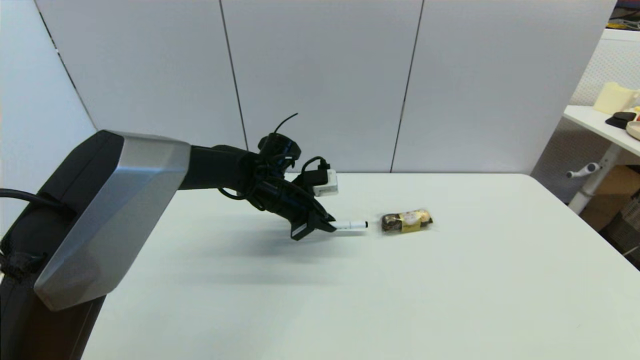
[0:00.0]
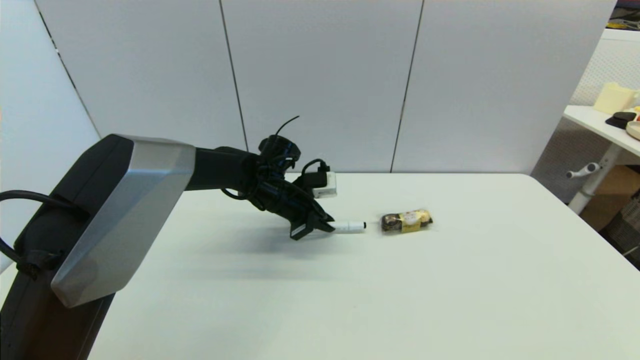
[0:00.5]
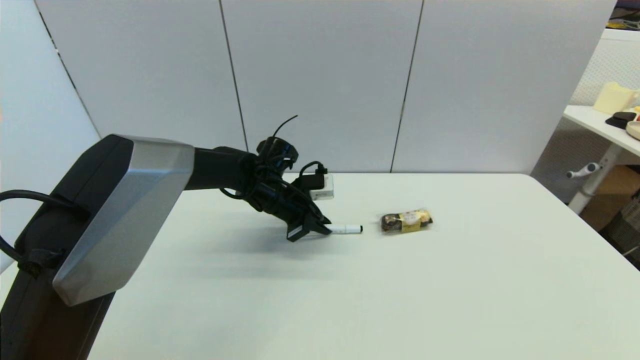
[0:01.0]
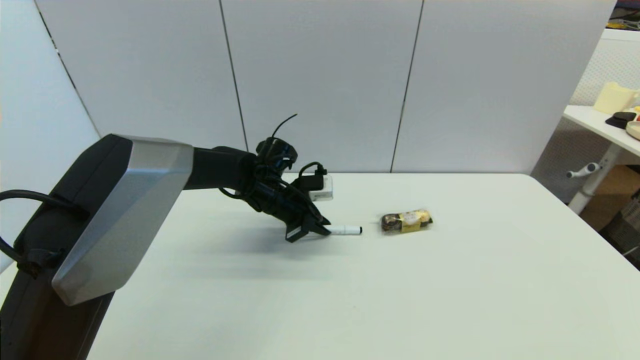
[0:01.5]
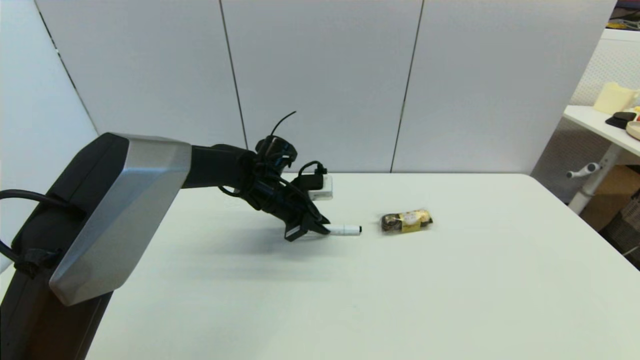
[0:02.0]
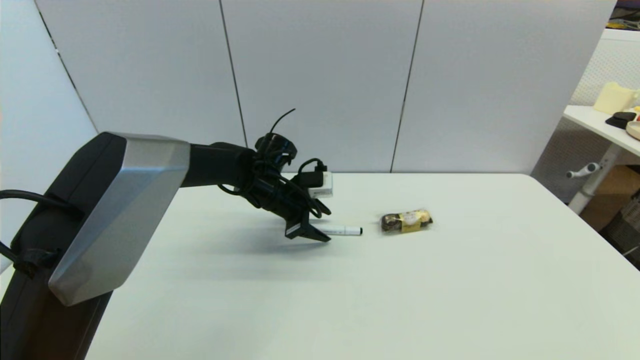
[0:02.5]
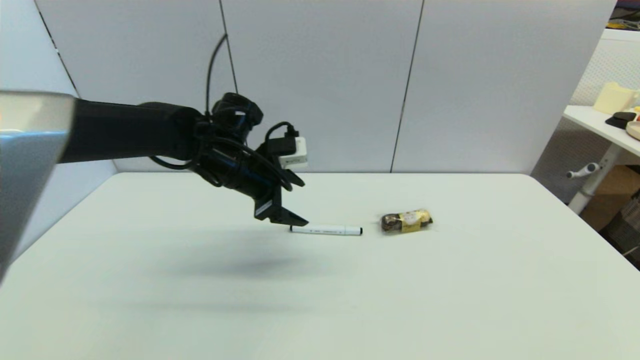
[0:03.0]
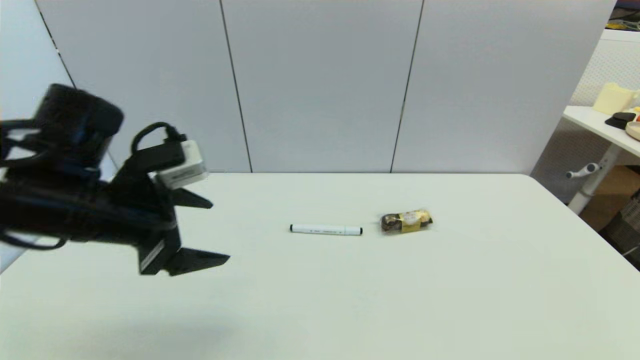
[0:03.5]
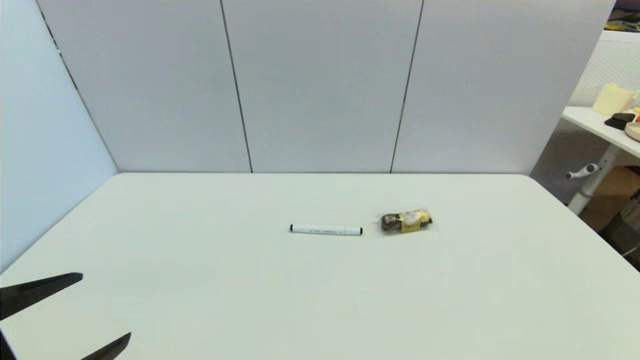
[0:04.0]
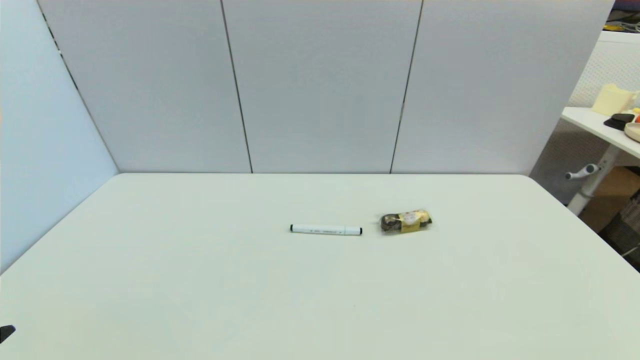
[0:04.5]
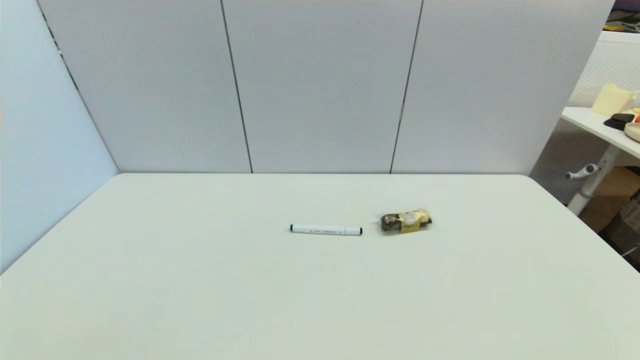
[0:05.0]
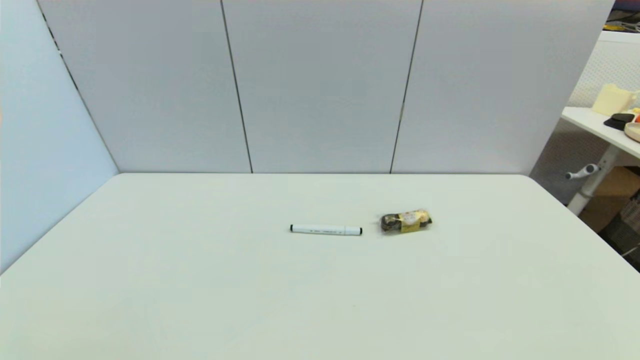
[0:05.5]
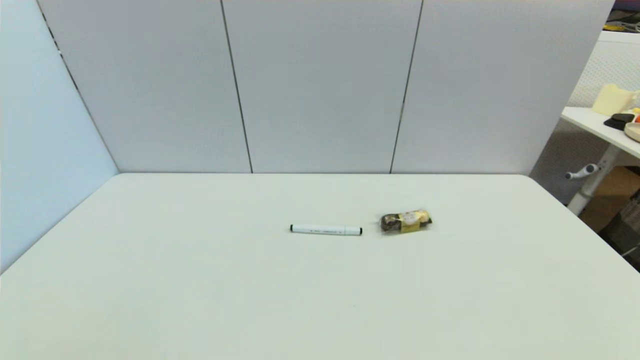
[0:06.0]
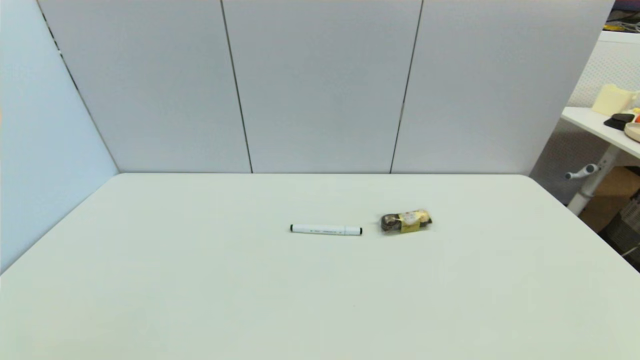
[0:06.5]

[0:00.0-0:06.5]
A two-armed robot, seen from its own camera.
Task of the whole recording: put the black marker in the designated position.
Step, 0:00.0 to 0:02.5: Place the Marker pen on the table with left gripper.
0:00.0 to 0:02.0: The grippers move only a little.
0:02.0 to 0:04.5: The left gripper shifts about 50 cm backward and to the left, and opens up.

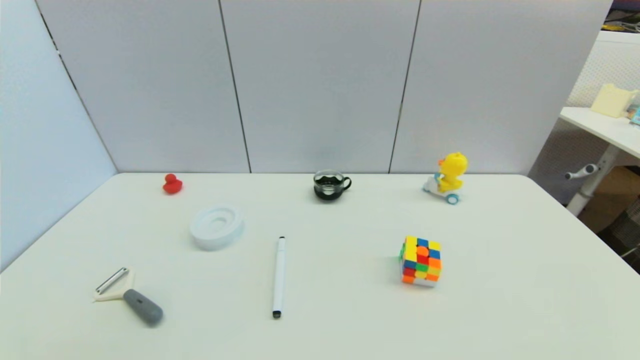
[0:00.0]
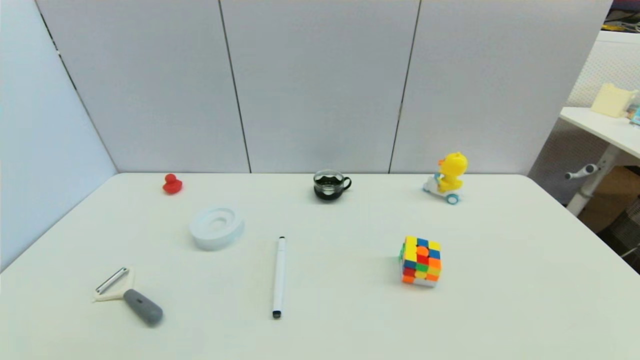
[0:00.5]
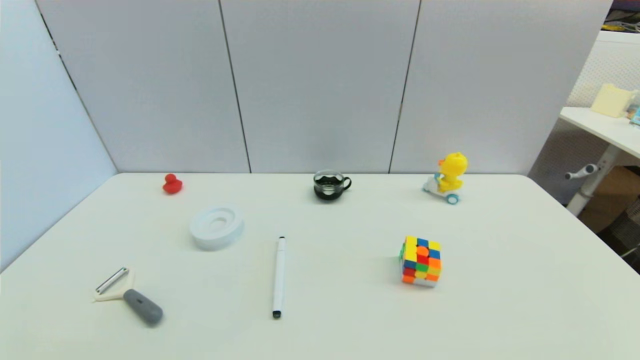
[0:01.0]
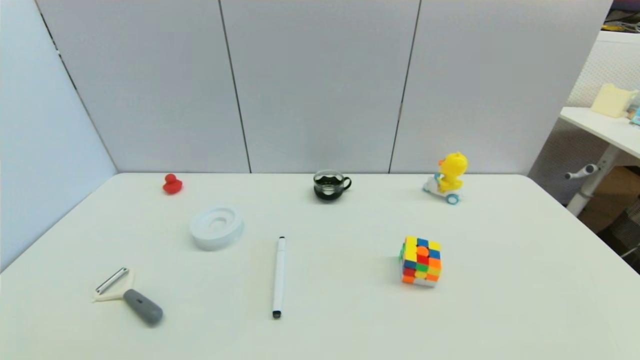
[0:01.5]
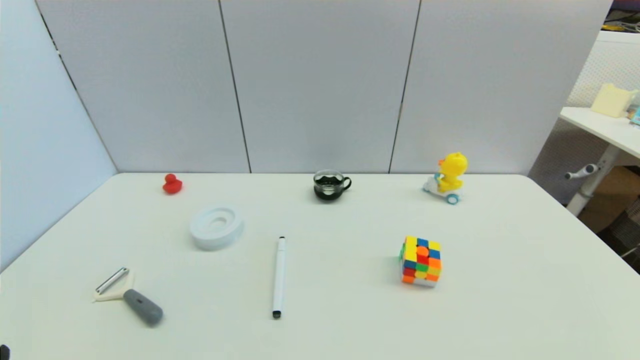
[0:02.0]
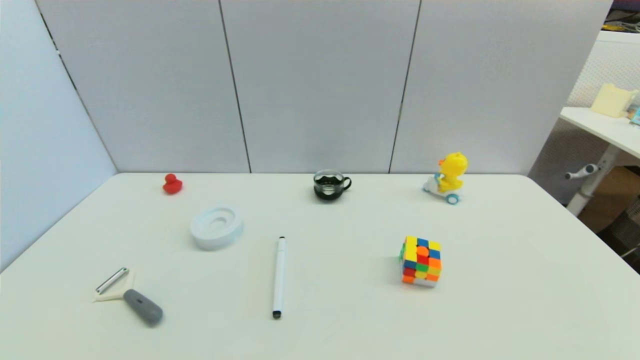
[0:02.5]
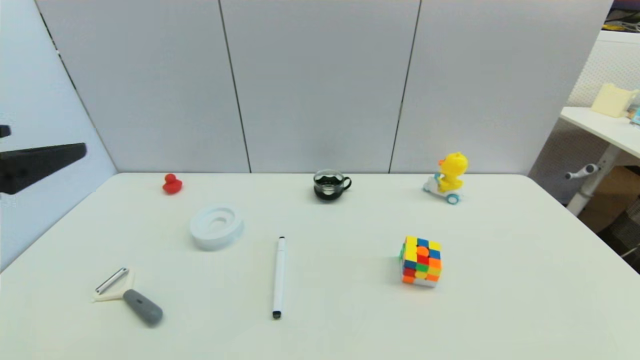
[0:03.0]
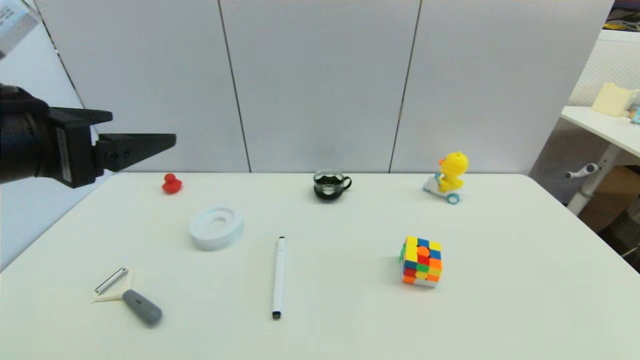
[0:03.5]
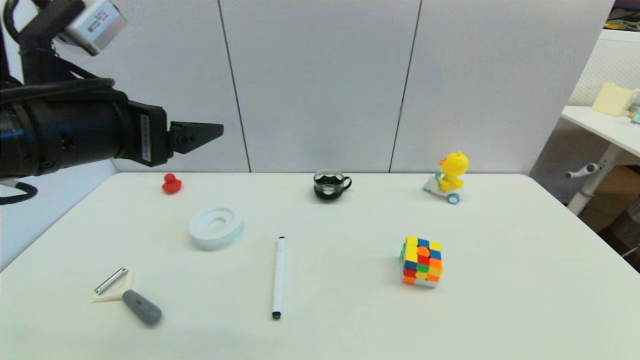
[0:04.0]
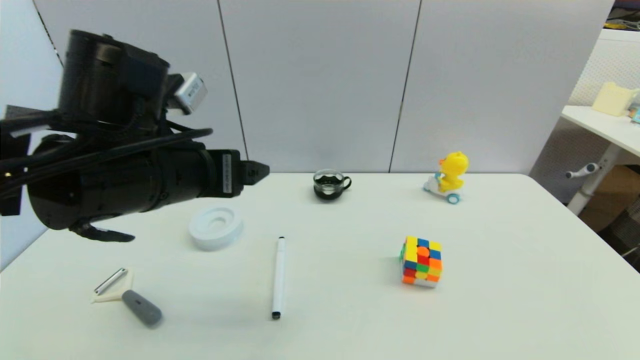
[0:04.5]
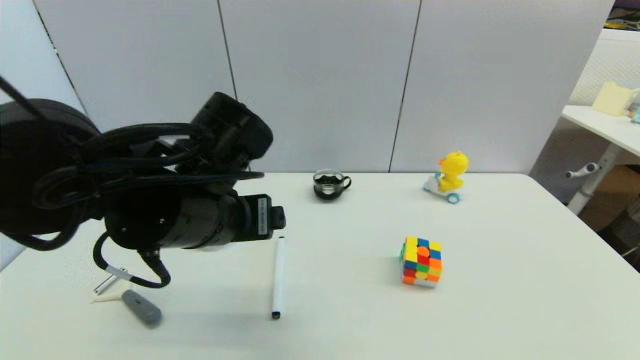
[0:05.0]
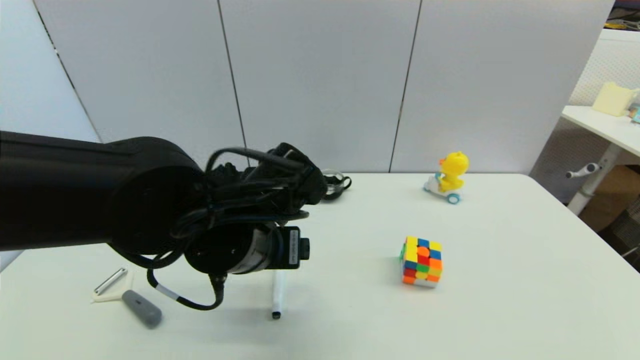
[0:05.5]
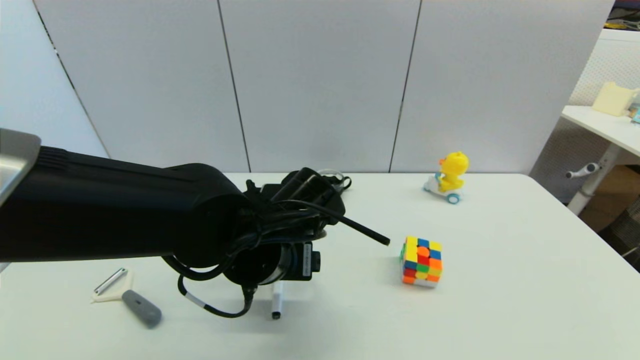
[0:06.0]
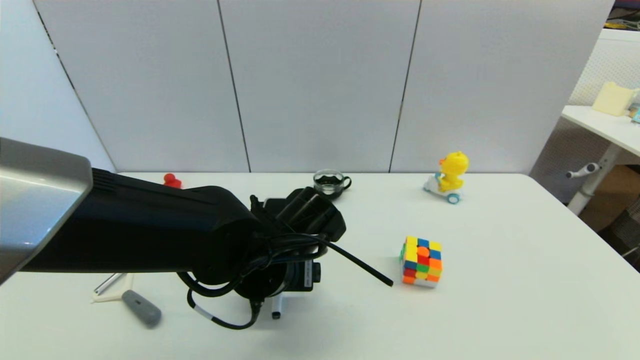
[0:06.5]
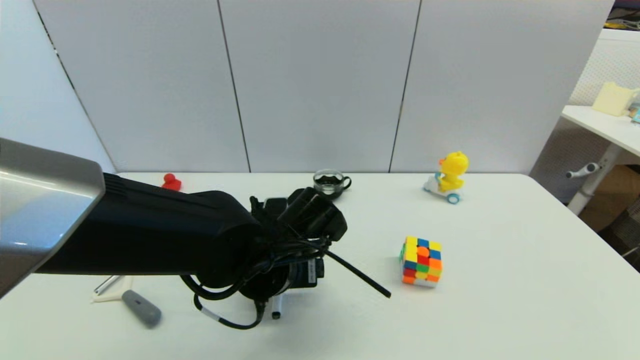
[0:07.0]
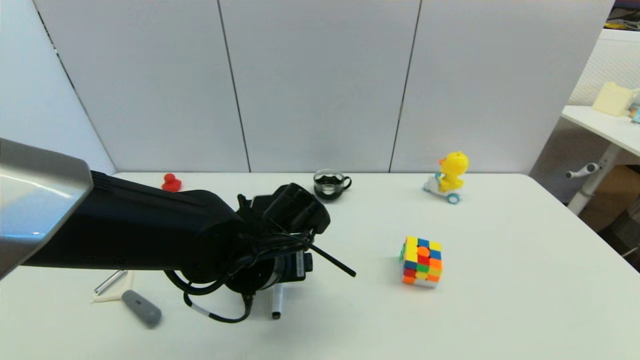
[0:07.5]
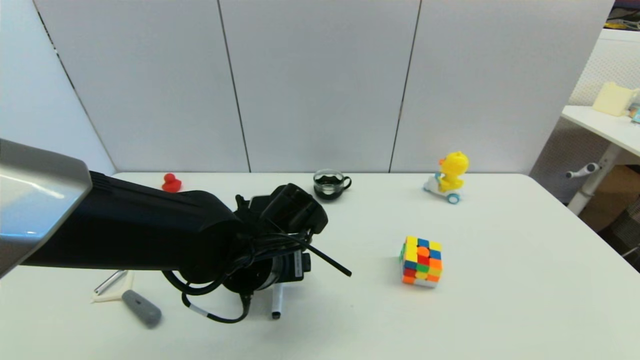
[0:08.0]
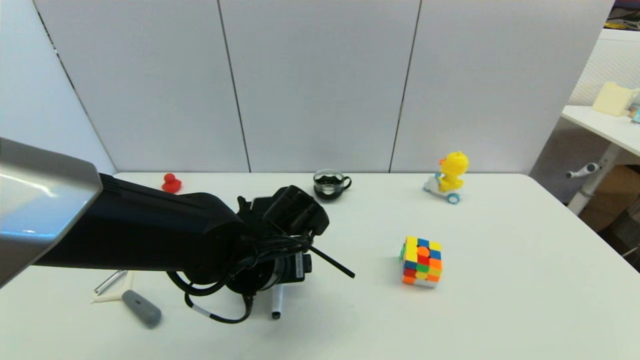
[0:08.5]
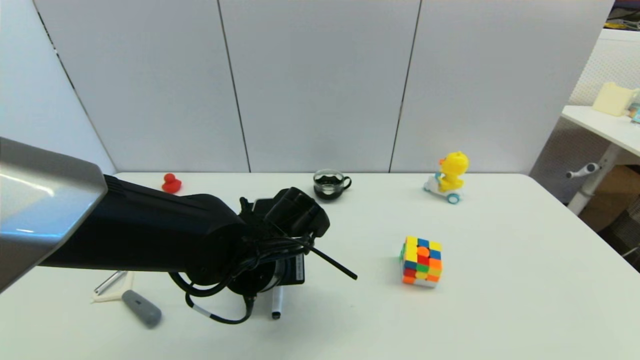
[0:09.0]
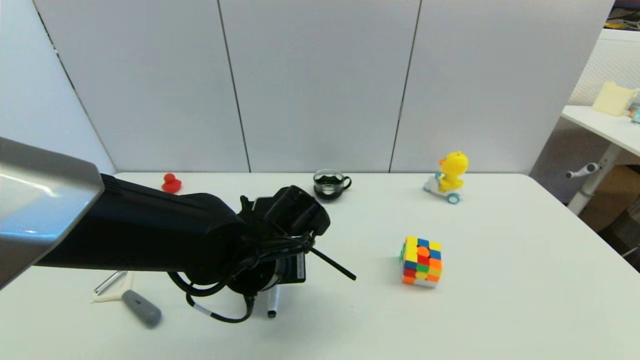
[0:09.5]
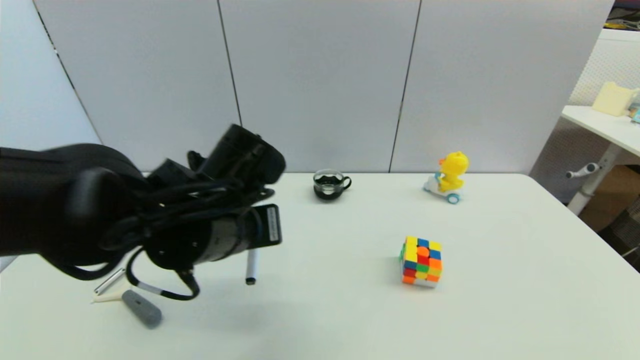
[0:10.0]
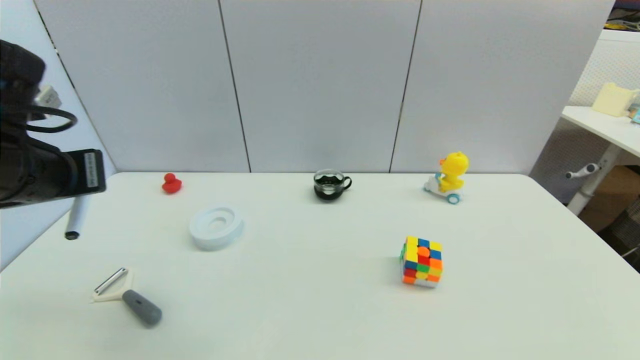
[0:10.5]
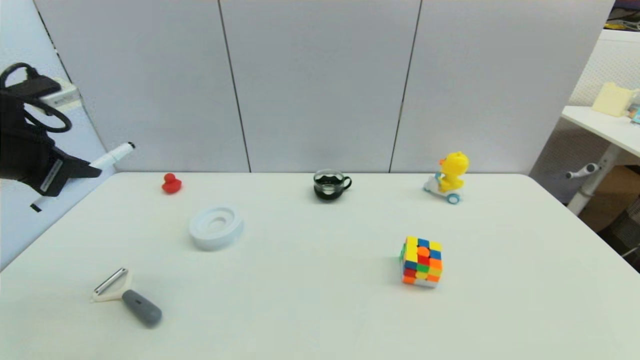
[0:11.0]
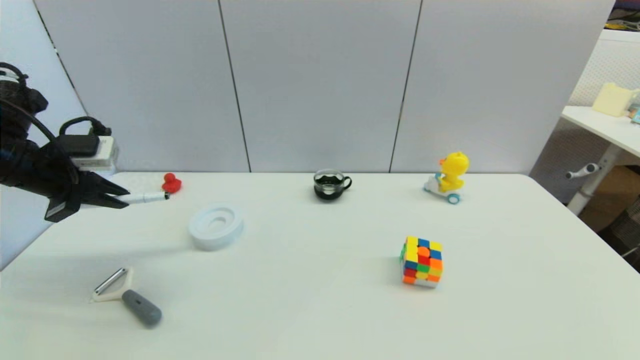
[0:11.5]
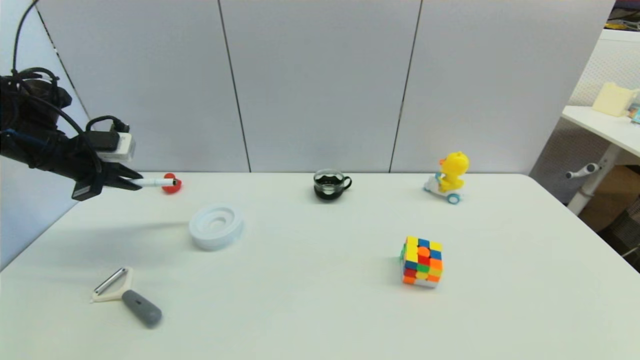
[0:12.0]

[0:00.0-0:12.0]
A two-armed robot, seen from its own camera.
Task of the whole recording: put the black marker in the designated position.
Step, 0:03.0 to 0:09.0: Grasp the Marker pen with left gripper.
0:02.0 to 0:04.0: The left gripper shifts roughly 30 cm forward, upward and to the right.
0:04.0 to 0:06.0: The left gripper goes some 20 cm downward and to the right.
0:06.0 to 0:08.0: There are only small adjustments of the grippers.
0:08.0 to 0:10.0: The left gripper travels upward by approximately 10 cm, and closes up.
0:10.0 to 0:12.0: The left gripper is displaced to the left and forward by approximately 30 cm.

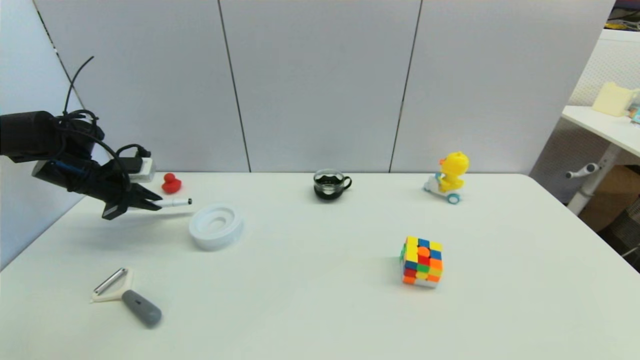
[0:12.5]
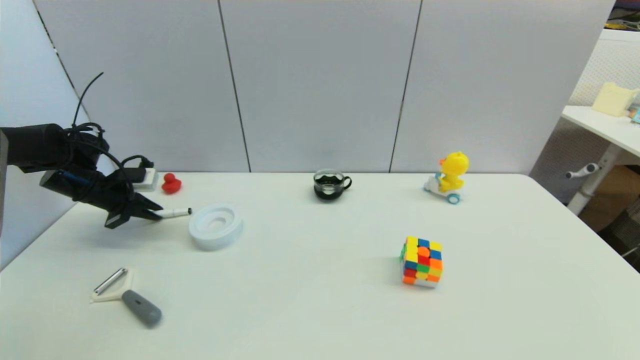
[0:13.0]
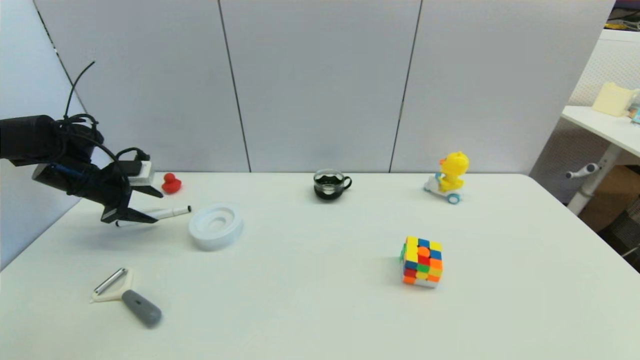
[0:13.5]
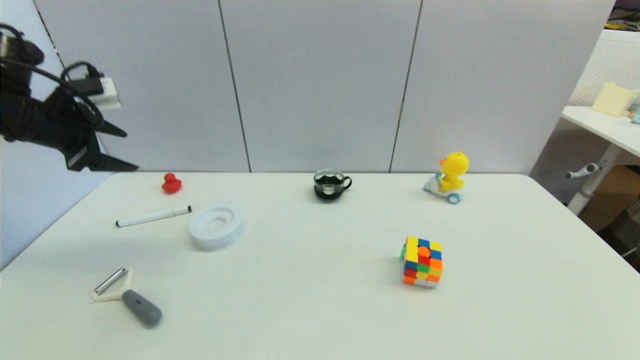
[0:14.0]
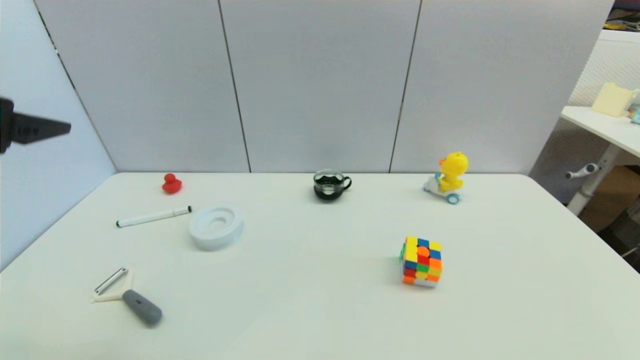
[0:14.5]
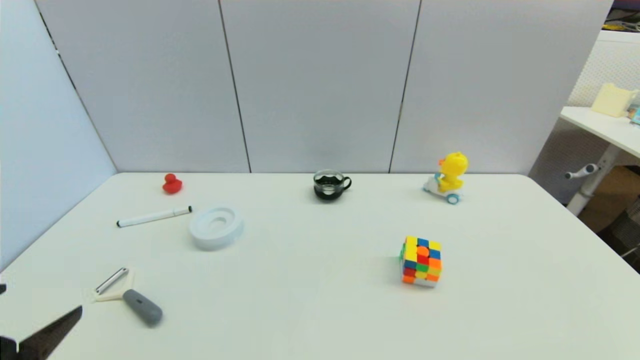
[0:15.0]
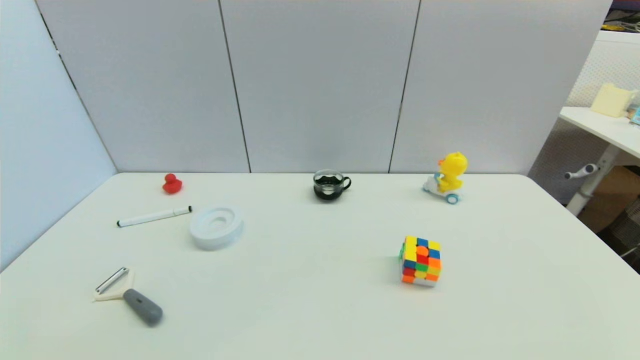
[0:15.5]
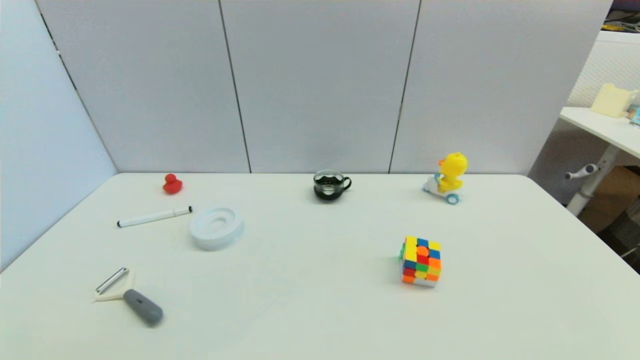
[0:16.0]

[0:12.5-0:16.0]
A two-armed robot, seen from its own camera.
Task of the whole recording: put the black marker in the designated position.
0:12.5 to 0:14.5: The left gripper shifts roughly 30 cm backward, upward and to the right, and opens.
0:14.5 to 0:16.0: The left gripper is displaced downward and backward by some 35 cm.
